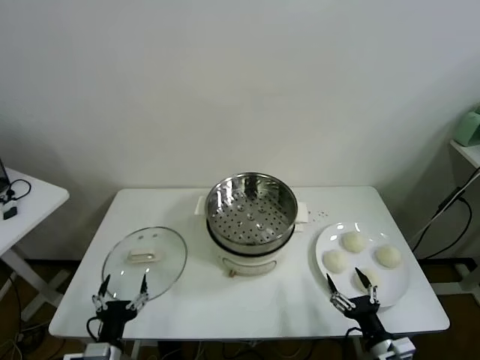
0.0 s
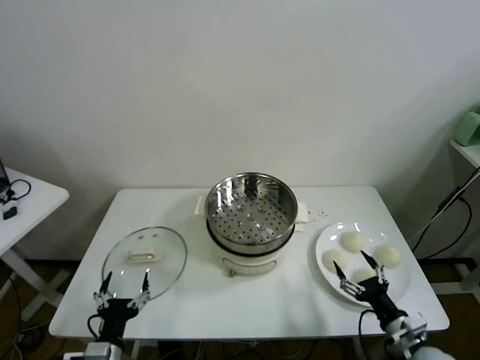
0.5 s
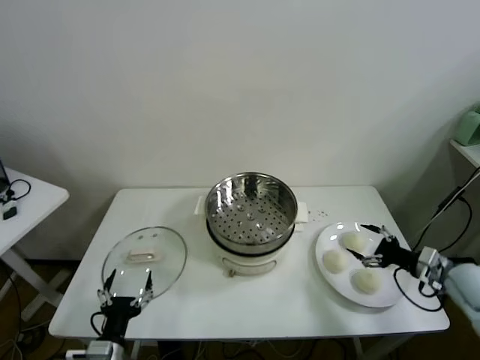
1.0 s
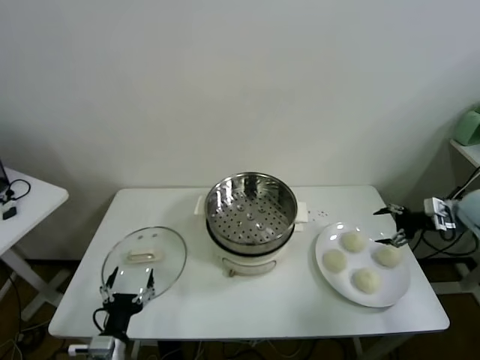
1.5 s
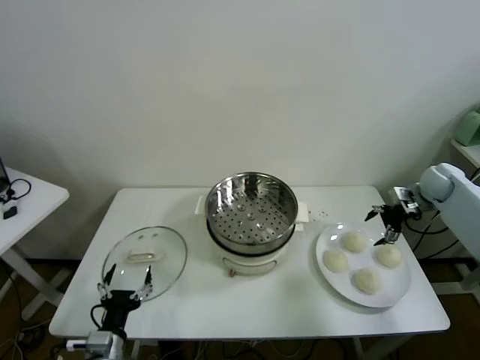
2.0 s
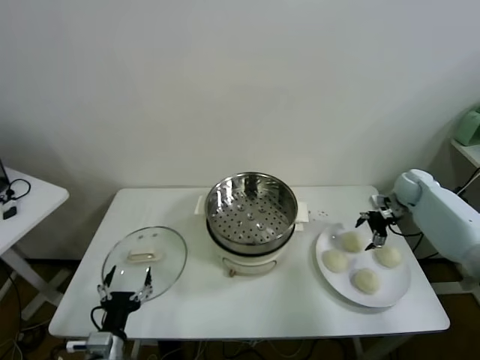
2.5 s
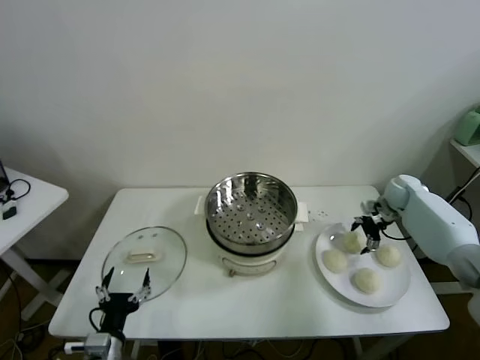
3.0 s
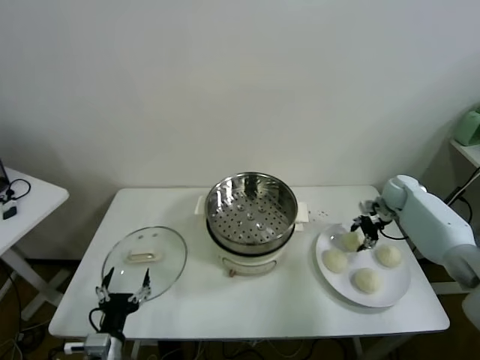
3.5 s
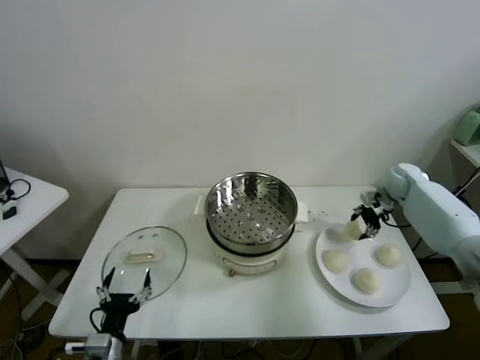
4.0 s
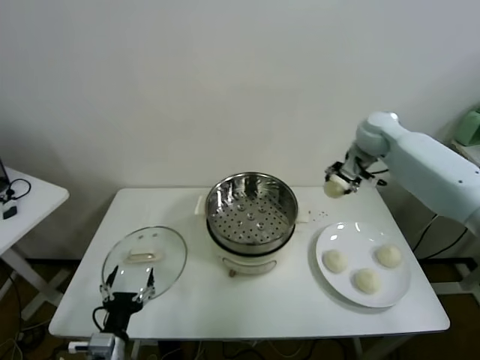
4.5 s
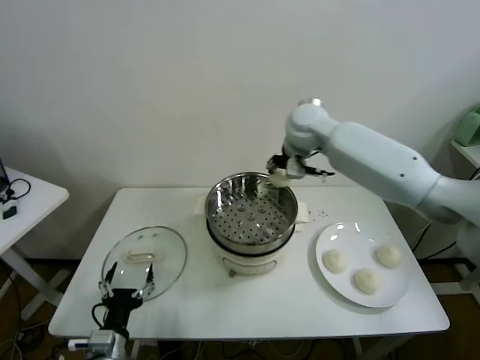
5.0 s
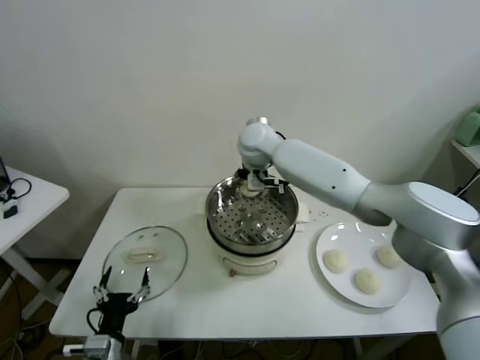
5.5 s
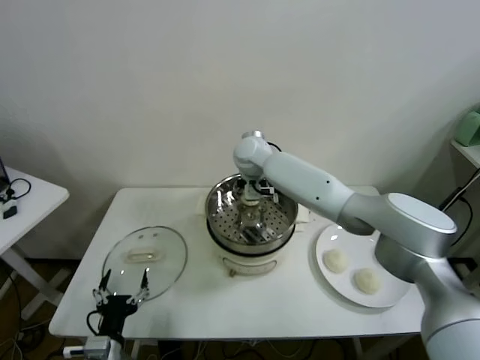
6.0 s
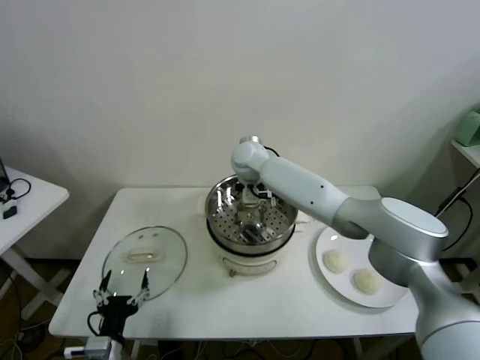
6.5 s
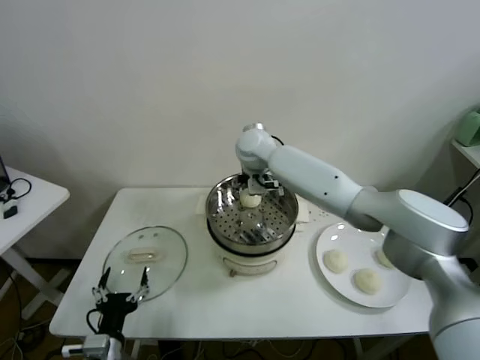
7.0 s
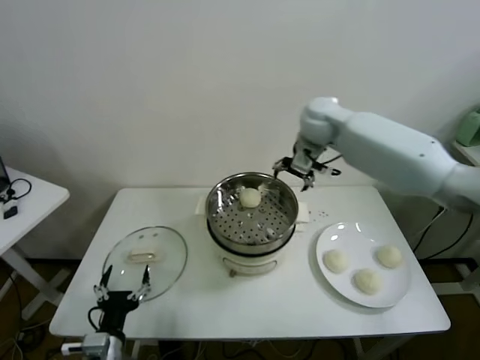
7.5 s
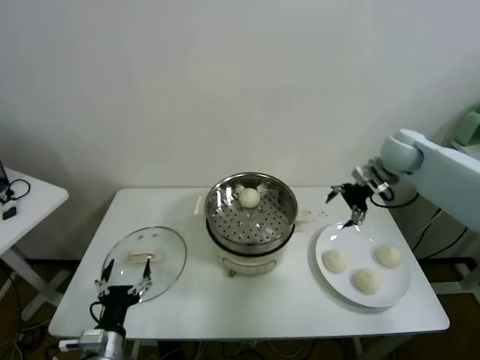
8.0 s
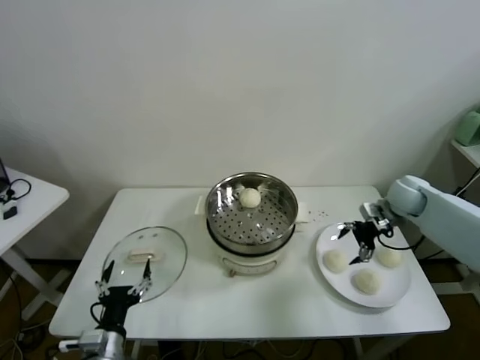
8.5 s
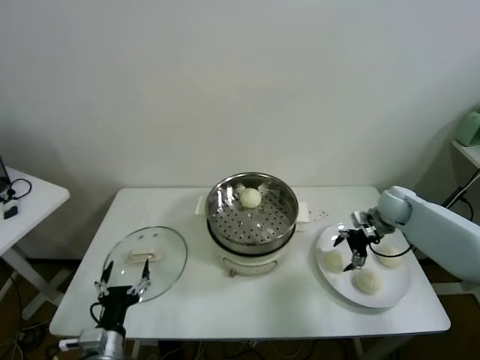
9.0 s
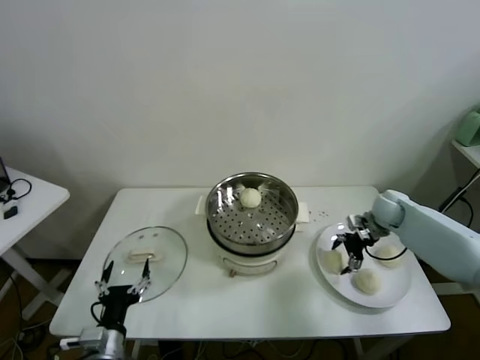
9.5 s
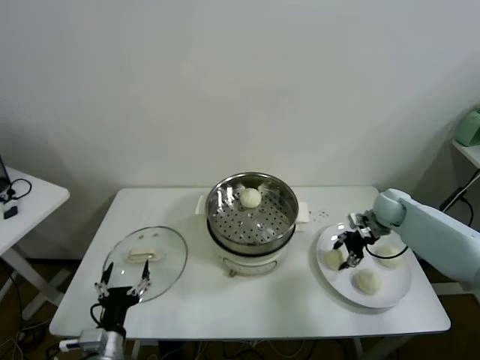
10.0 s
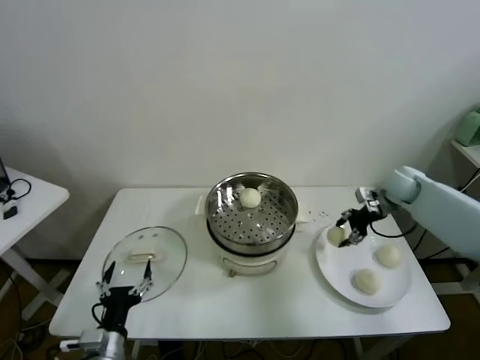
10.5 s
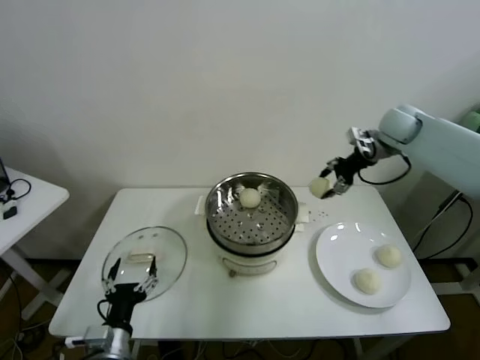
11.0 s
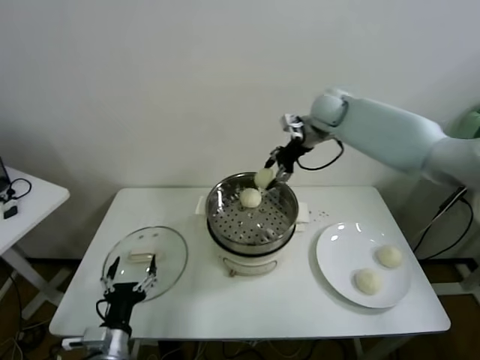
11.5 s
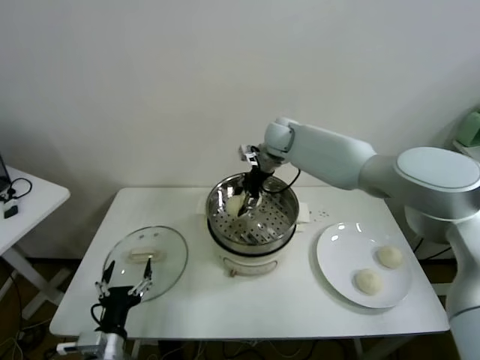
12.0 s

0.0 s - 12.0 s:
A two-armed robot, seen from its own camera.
Task of the whole recording: take steamed baozi put them in steamer.
Step, 0.0 s - 3.5 s: Grasp the baozi in the plate with right gripper.
Step, 4.0 s - 7.0 s: Place the baozi on the steamer with right gripper.
Step, 7.5 s - 9.5 s: Grasp the baozi in the plate with right gripper.
2.0 s - 4.0 s: The right gripper moves to the left, approximately 5 cm, and closes.
4.0 s - 6.0 s: The right gripper shifts roughly 40 cm to the left.
6.0 s - 8.0 s: The right gripper moves to the right, about 35 cm, and opens up.
8.0 s - 10.0 s: The right gripper heads downward, covering some 15 cm, and closes up.
10.0 s - 12.0 s: The right gripper goes about 35 cm to the left and upward.

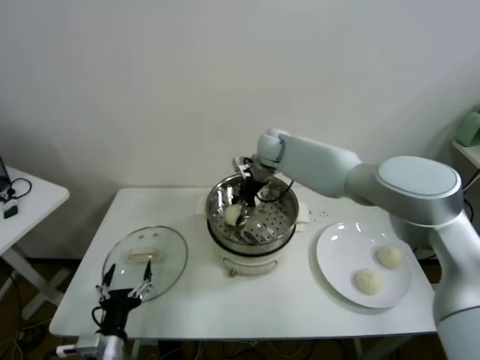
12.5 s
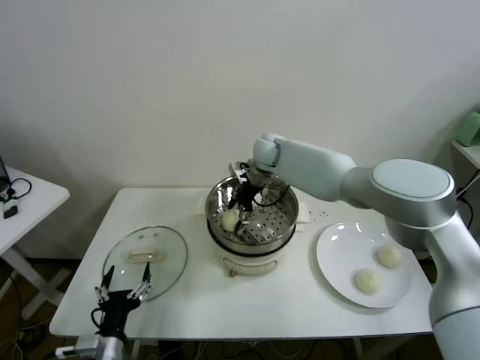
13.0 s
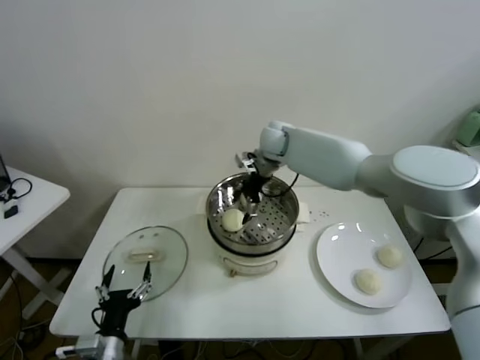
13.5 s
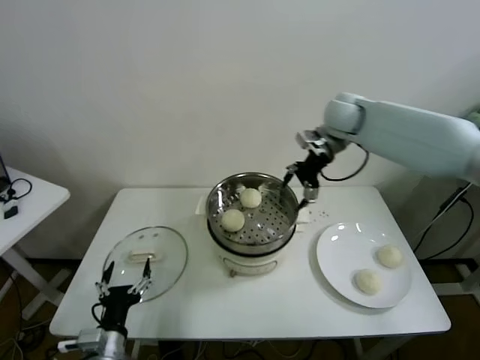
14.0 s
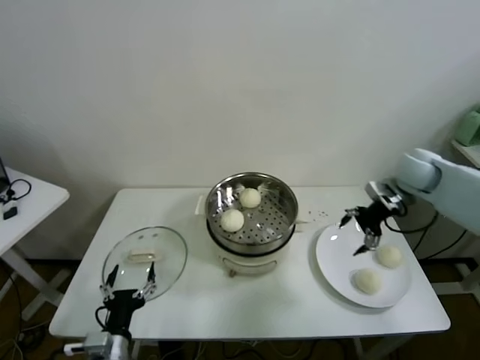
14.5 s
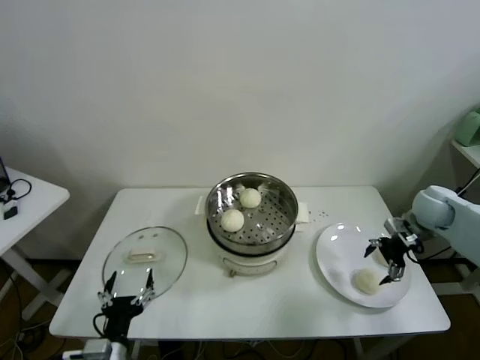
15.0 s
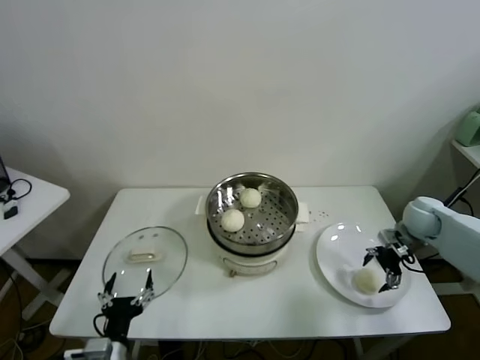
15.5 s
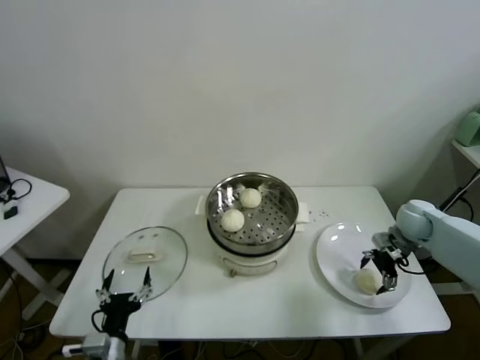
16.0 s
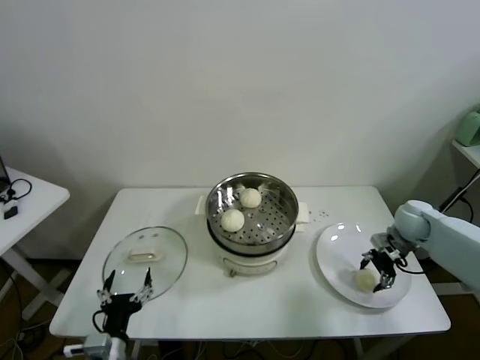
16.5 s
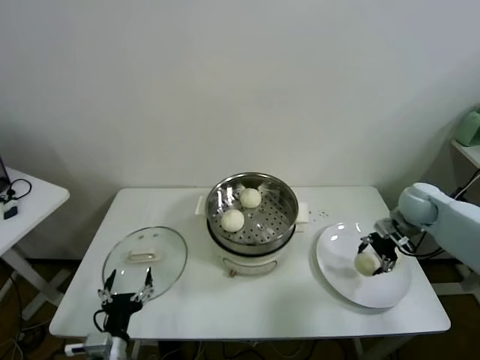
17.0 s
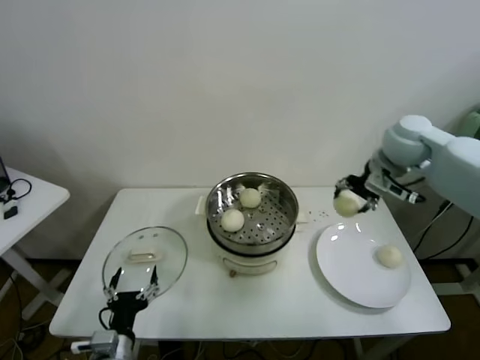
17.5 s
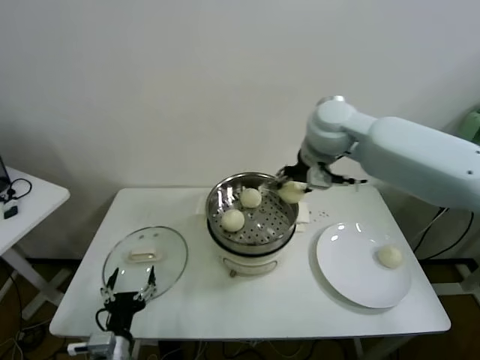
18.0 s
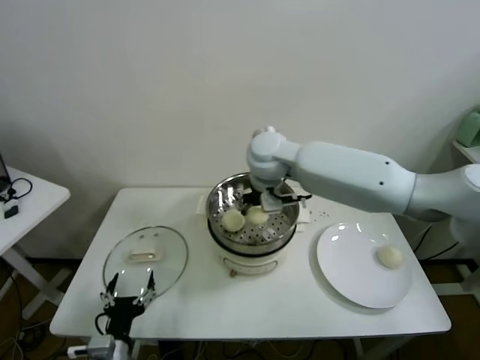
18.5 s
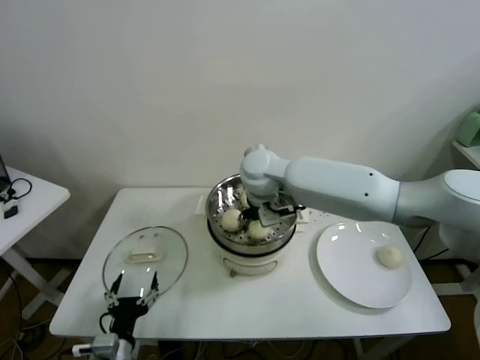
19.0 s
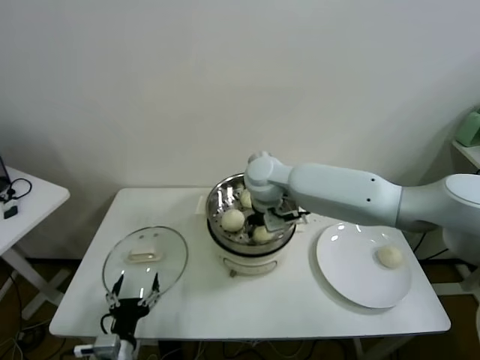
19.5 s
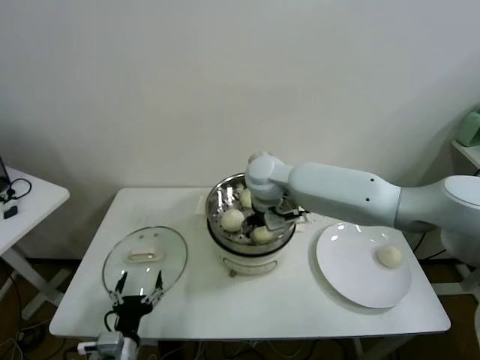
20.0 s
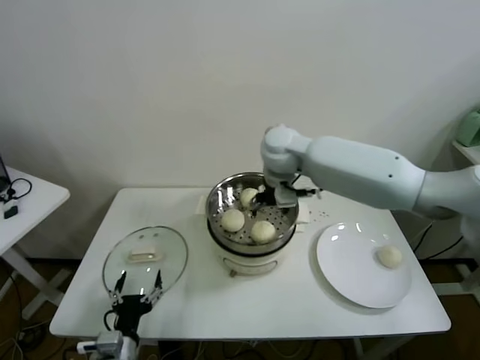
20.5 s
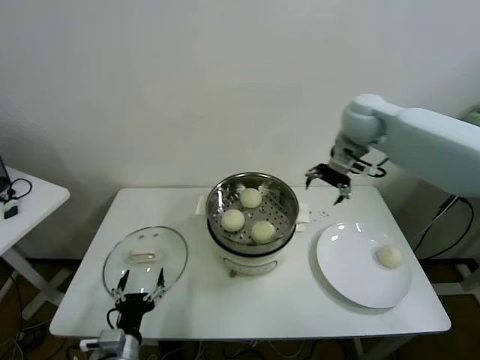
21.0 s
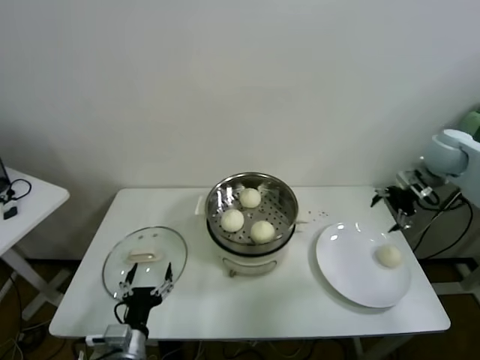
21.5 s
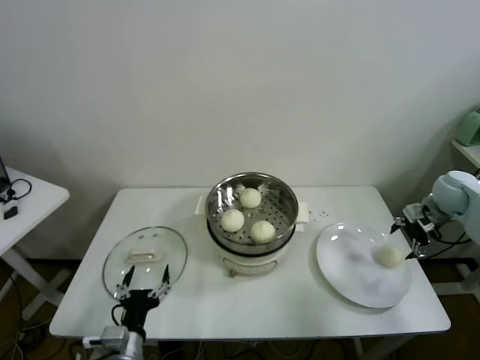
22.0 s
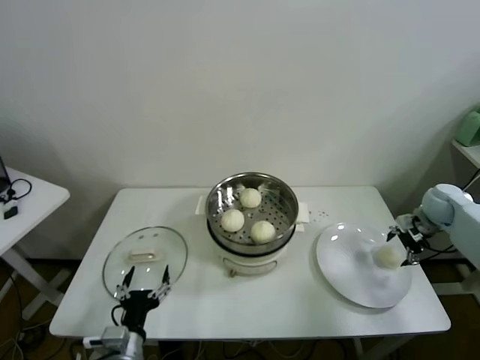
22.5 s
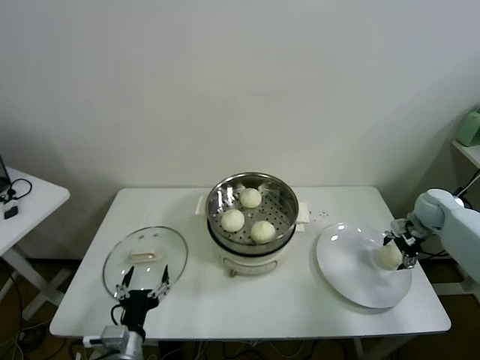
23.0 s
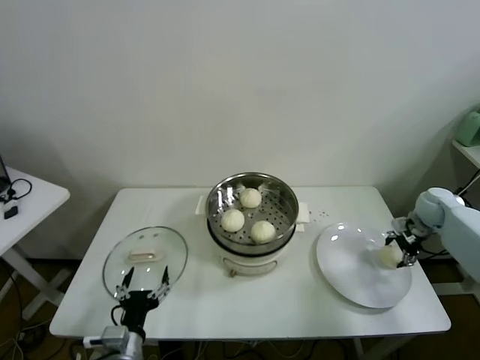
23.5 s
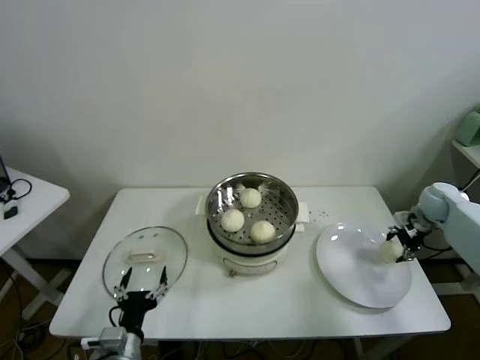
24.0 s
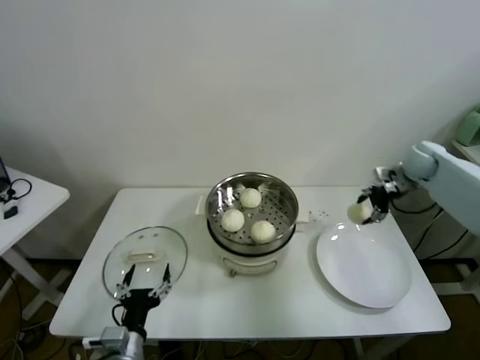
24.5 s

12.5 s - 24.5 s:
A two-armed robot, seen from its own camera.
Task of the whole recording: take steamed baozi put them in steamer.
Step, 13.5 s - 16.5 s: Grasp the baozi in the plate with right gripper.
Step, 17.0 s - 20.0 s: Place the baozi on the steamer with right gripper.
Step, 20.5 s - 23.5 s: Grasp the baozi in the plate with right gripper.
12.5 s - 14.5 s: The right gripper moves to the right, approximately 30 cm, and opens its fingers.
14.5 s - 16.5 s: The right gripper goes roughly 15 cm downward, and closes its fingers.
16.5 s - 18.5 s: The right gripper shifts some 40 cm to the left and upward.
18.5 s - 20.5 s: The right gripper opens.
20.5 s - 22.5 s: The right gripper travels to the right by roughly 40 cm.
22.5 s - 24.5 s: The right gripper travels upward, forward and to the left by about 10 cm, and closes its fingers.

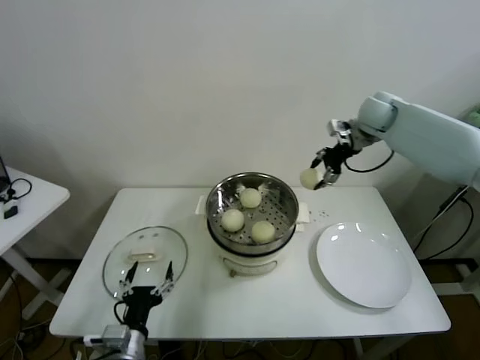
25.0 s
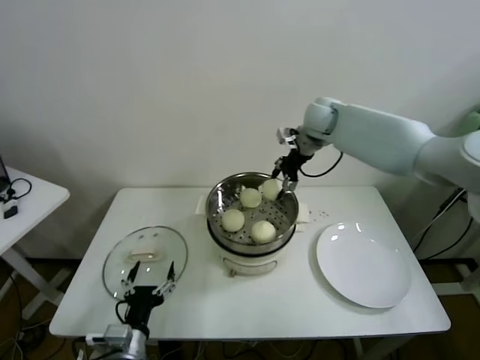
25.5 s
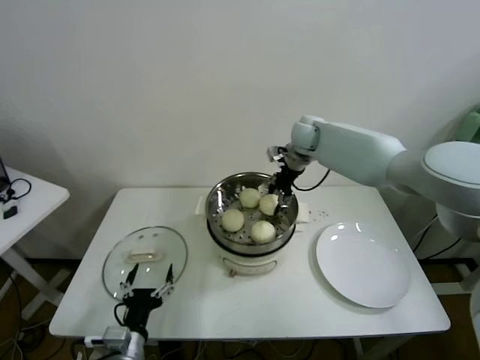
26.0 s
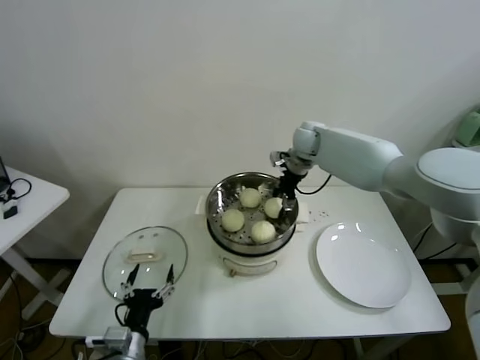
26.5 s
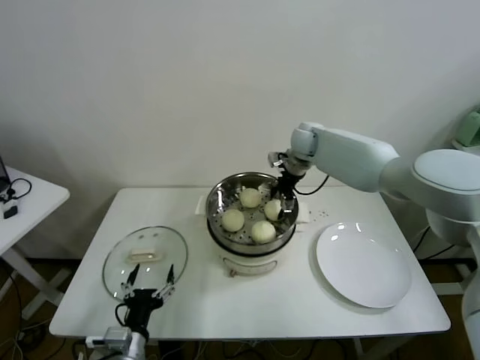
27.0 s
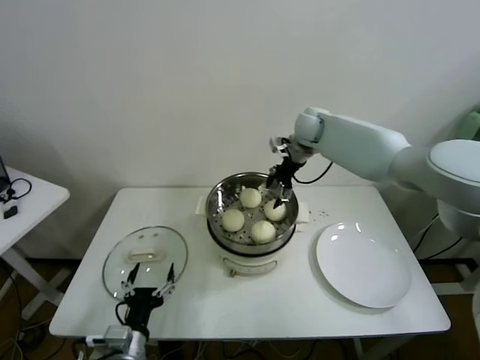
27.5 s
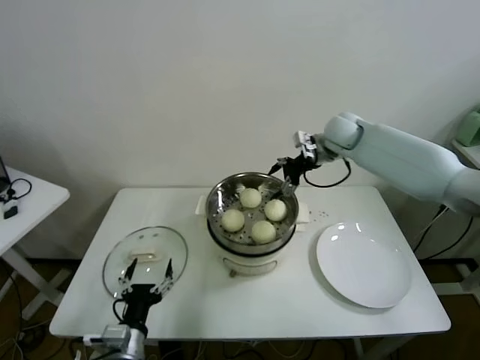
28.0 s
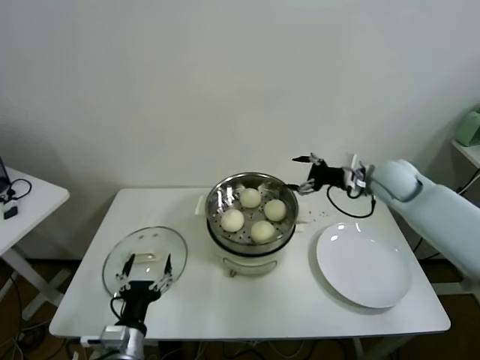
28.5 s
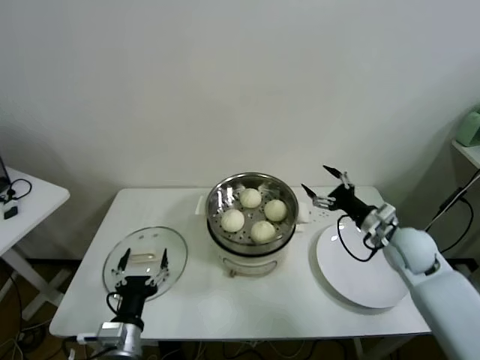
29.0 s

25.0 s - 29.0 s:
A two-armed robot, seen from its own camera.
Task of the whole recording: take steamed baozi put them in steamer.
Step, 25.0 s - 27.0 s: Place the baozi on the steamer with right gripper.
25.0 s - 27.0 s: The right gripper shifts some 20 cm to the left and downward, and opens up.
27.0 s - 29.0 s: The right gripper shifts about 30 cm backward, to the right and downward.
